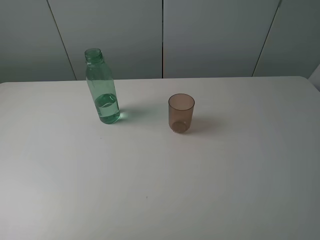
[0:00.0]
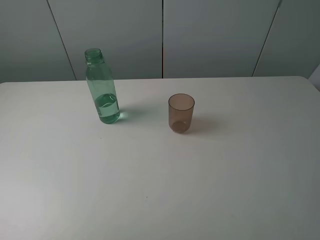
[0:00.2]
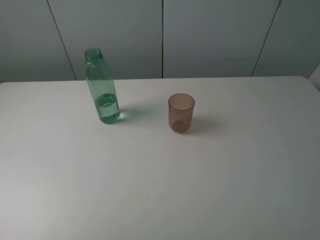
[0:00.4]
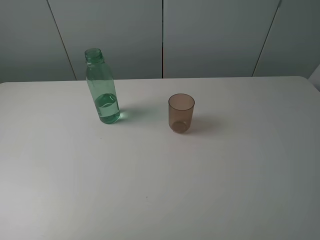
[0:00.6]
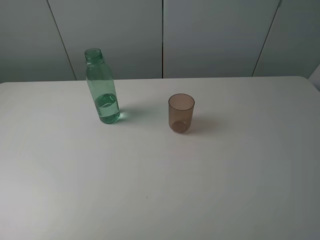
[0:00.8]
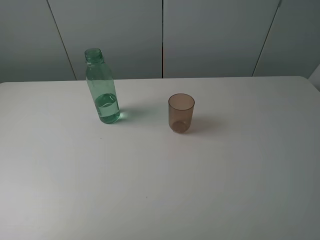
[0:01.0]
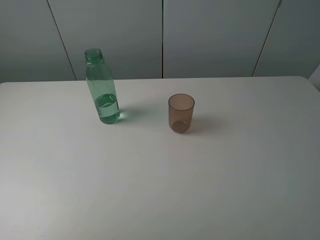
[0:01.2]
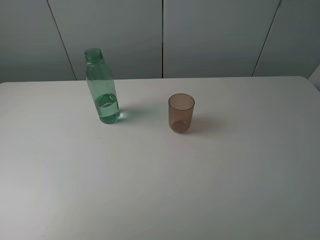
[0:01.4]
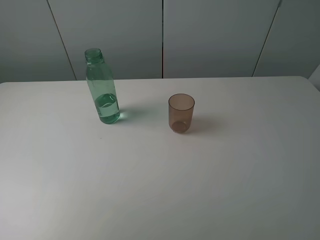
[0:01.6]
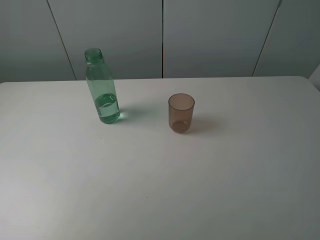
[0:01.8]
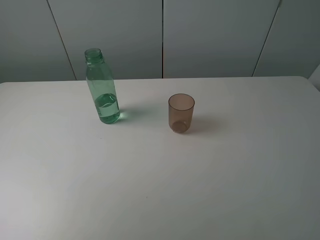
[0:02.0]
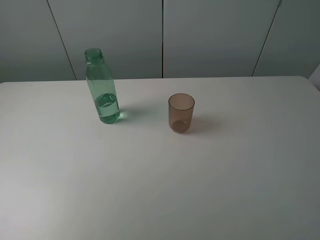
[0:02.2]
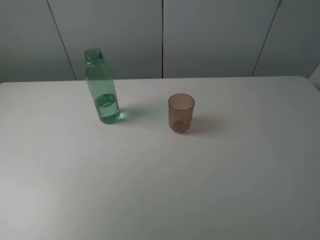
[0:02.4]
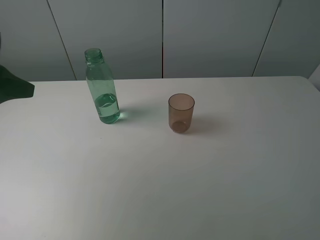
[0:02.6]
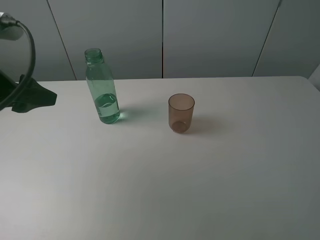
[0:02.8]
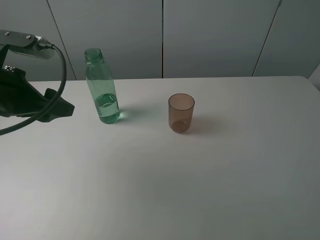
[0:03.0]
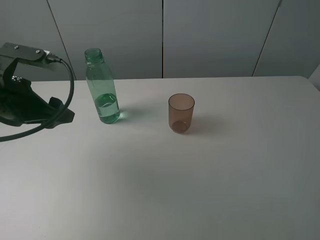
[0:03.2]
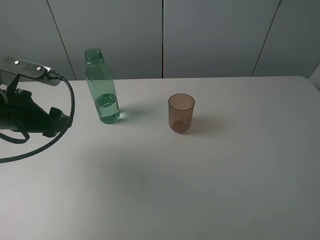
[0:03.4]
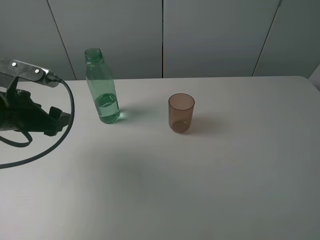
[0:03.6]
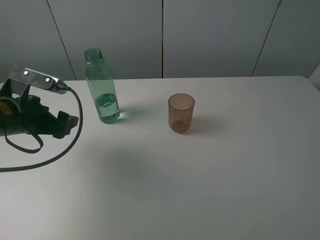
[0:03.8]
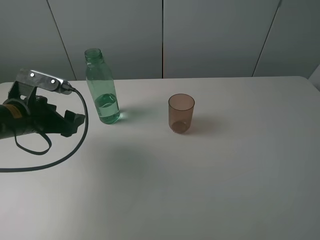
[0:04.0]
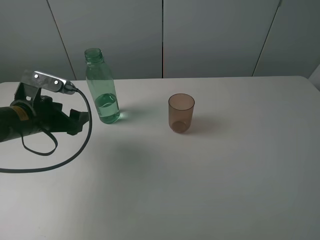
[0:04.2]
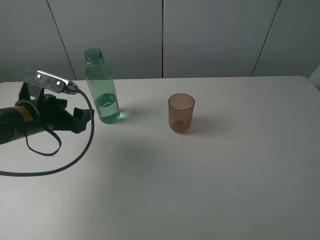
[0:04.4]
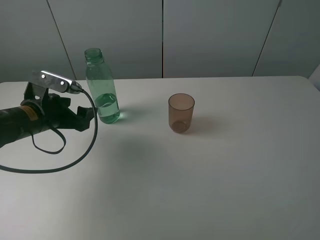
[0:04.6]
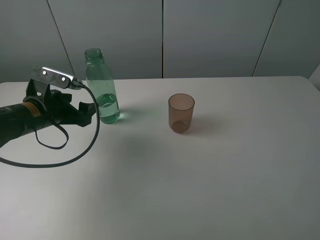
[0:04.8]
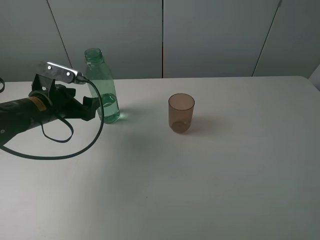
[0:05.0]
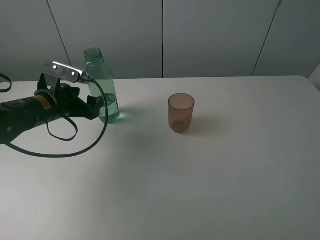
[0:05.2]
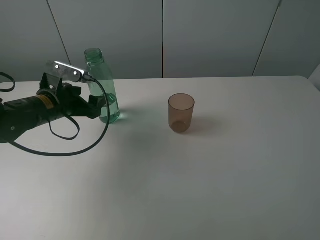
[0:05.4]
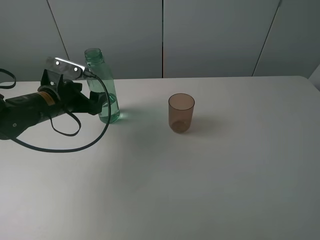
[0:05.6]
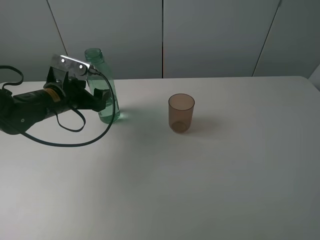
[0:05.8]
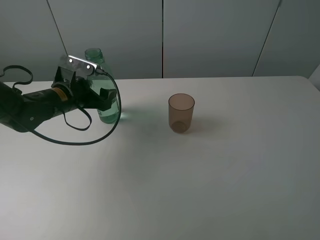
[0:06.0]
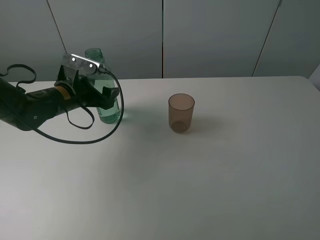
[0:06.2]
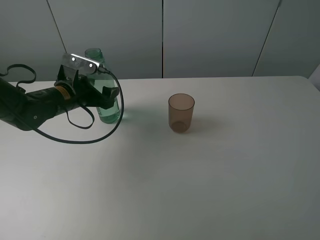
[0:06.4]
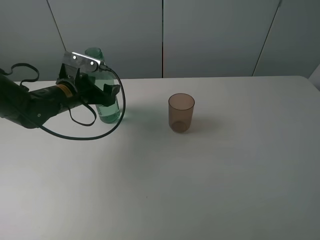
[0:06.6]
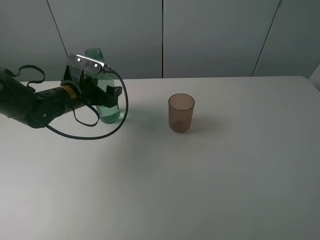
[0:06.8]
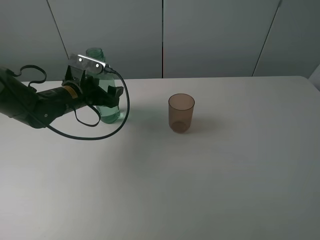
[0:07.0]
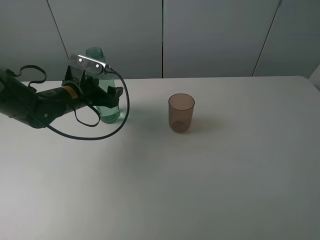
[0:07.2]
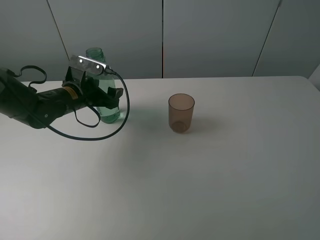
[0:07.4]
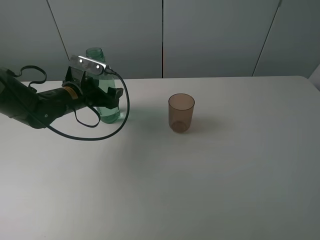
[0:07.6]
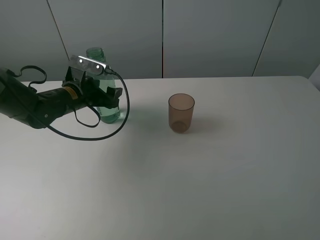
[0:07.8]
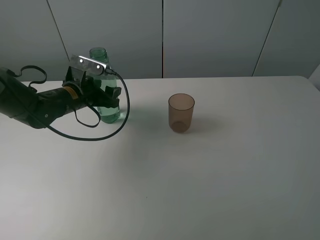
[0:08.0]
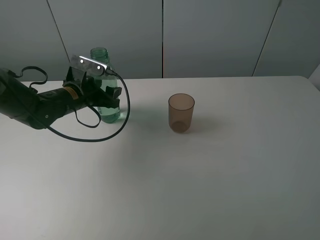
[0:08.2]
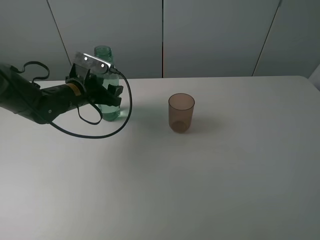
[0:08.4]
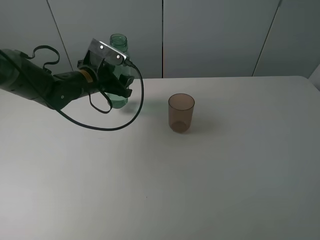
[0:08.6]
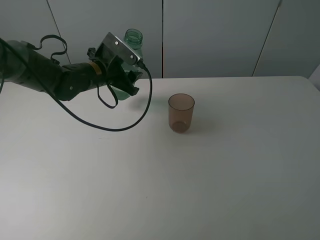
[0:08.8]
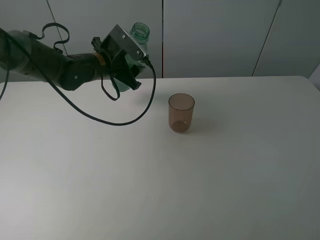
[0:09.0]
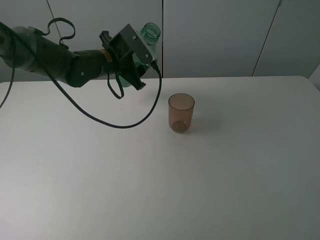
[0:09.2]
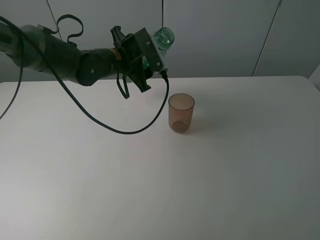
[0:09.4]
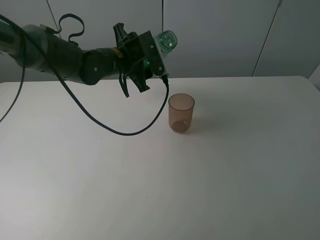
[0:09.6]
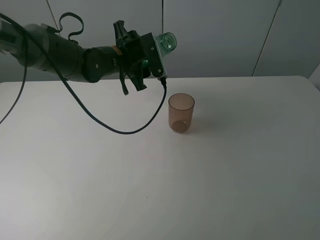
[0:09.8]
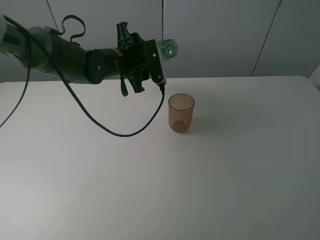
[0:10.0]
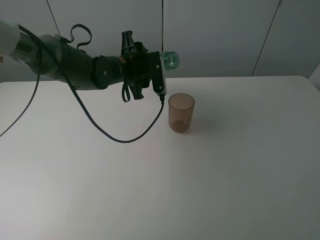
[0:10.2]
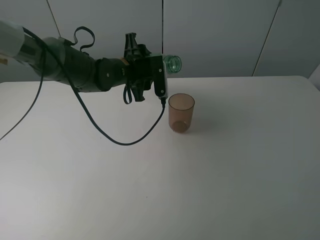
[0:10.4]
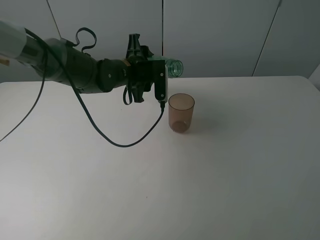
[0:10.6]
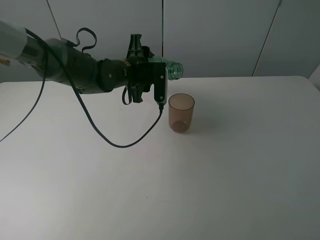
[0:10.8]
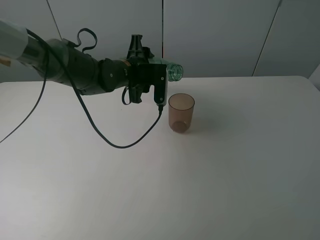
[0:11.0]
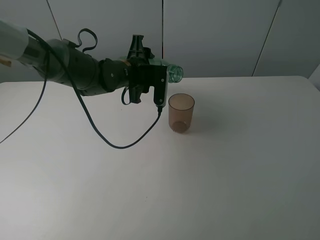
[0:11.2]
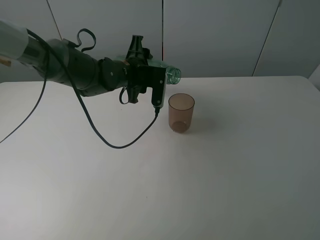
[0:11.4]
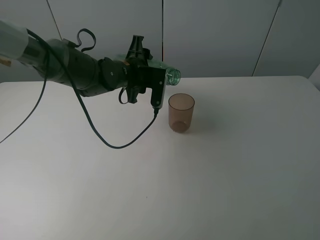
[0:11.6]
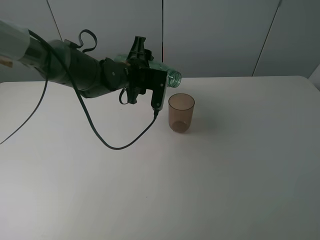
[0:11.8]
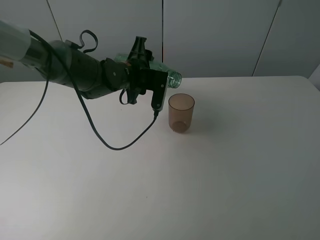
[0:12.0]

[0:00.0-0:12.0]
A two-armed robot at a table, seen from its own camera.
Task of the whole recording: pick up the bottle filled with water and pour it into the pink cup.
Step, 0:00.0 to 0:08.0: Grasp the green bottle with the left gripper.
0:01.6 to 0:03.0: The left gripper is displaced forward, downward and to the right by some 20 cm.
0:03.0 to 0:04.4: The left gripper goes approximately 10 cm downward.
0:04.4 to 0:06.0: The left gripper moves forward, about 5 cm.
0:06.0 to 0:07.6: The grippers stay close to where they were, moving slightly.
0:07.6 to 0:09.0: The left gripper travels to the right and upward by about 10 cm, and closes its fingers.
0:10.4 to 0:12.0: The grippers make only small movements.

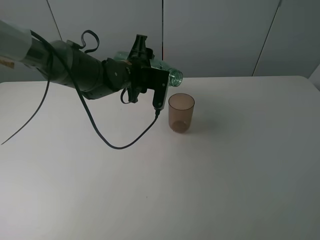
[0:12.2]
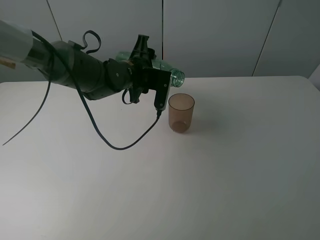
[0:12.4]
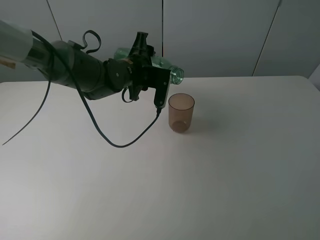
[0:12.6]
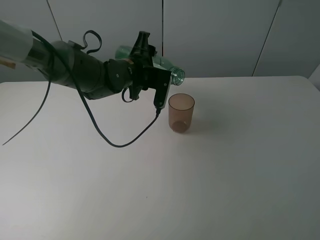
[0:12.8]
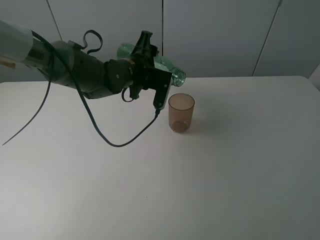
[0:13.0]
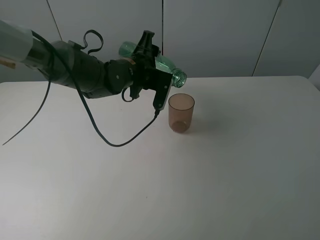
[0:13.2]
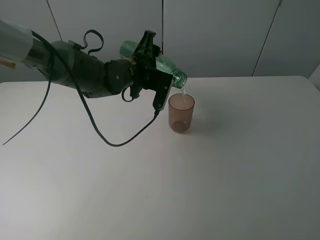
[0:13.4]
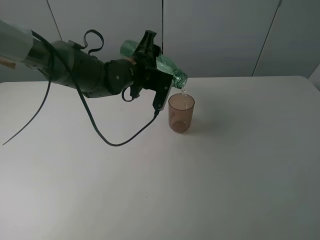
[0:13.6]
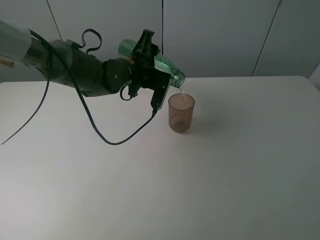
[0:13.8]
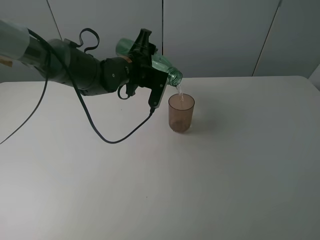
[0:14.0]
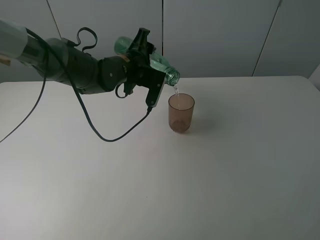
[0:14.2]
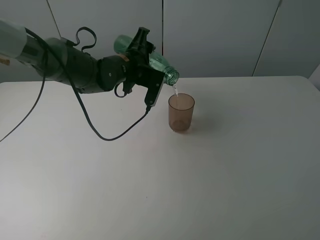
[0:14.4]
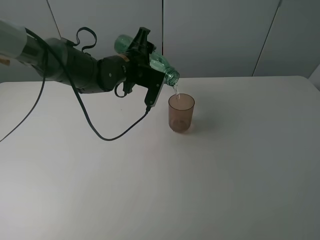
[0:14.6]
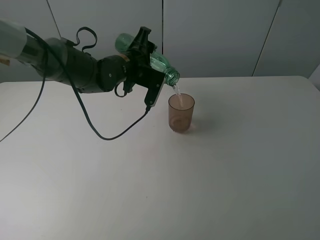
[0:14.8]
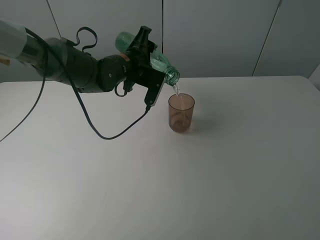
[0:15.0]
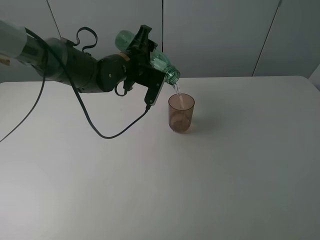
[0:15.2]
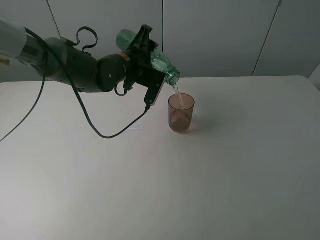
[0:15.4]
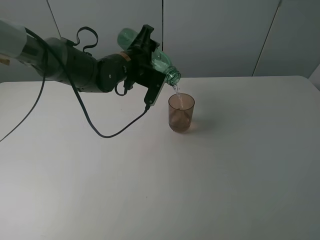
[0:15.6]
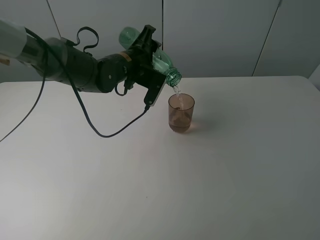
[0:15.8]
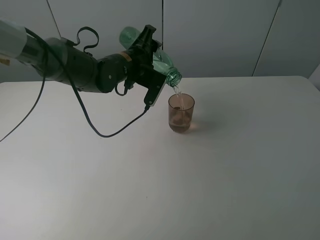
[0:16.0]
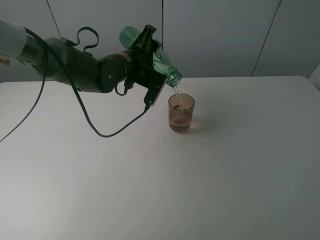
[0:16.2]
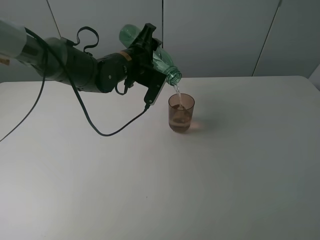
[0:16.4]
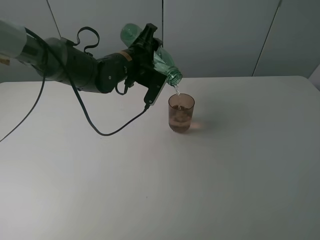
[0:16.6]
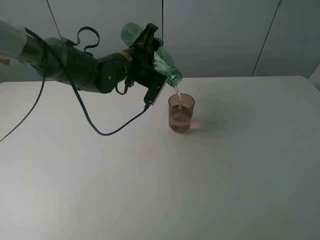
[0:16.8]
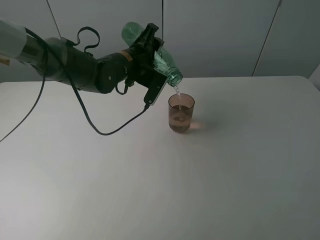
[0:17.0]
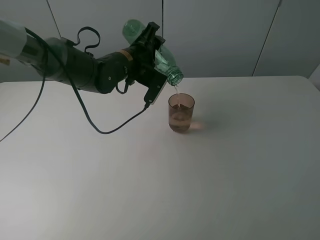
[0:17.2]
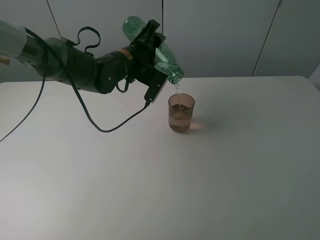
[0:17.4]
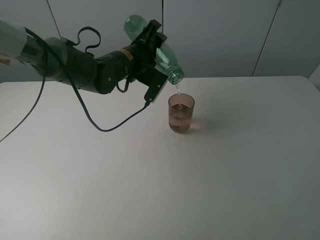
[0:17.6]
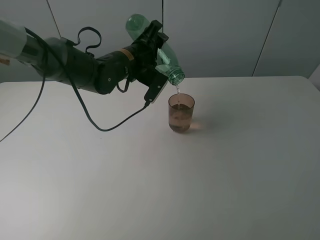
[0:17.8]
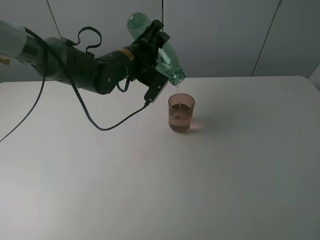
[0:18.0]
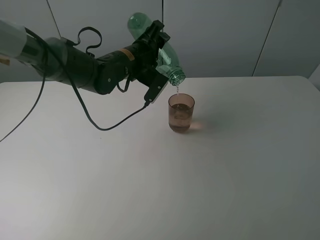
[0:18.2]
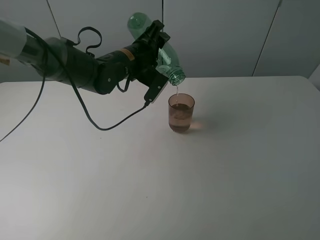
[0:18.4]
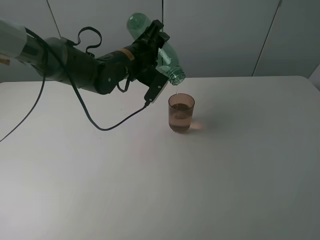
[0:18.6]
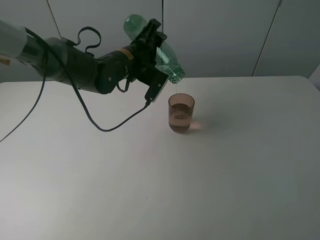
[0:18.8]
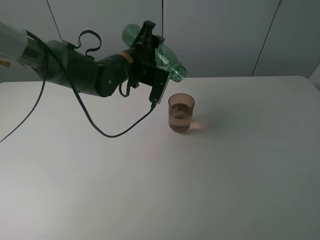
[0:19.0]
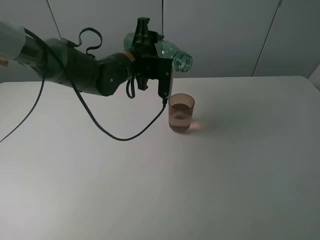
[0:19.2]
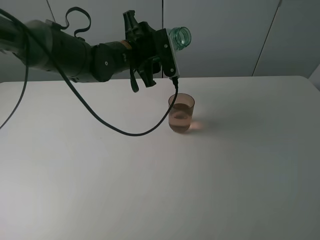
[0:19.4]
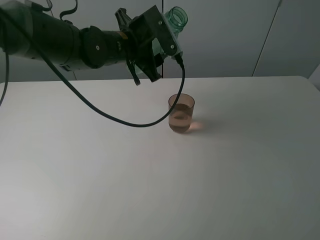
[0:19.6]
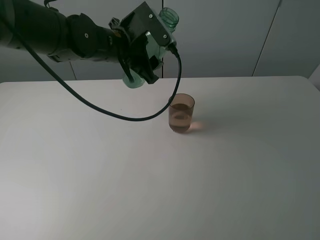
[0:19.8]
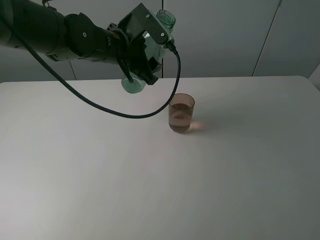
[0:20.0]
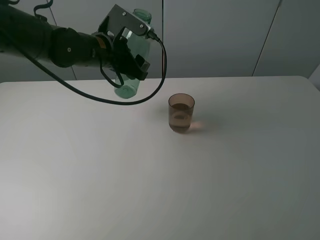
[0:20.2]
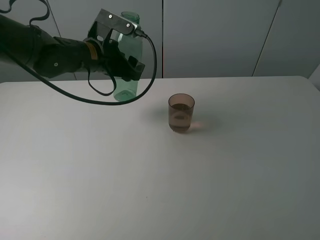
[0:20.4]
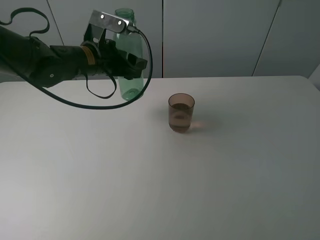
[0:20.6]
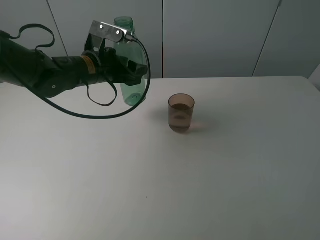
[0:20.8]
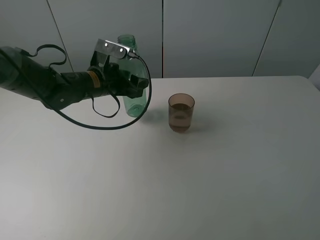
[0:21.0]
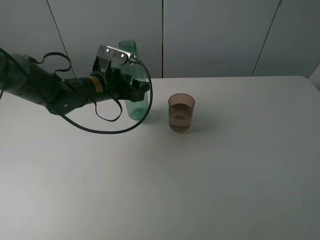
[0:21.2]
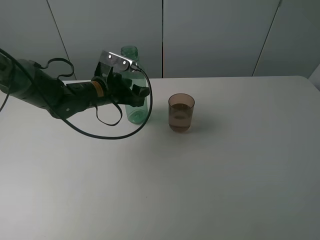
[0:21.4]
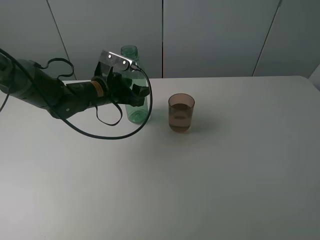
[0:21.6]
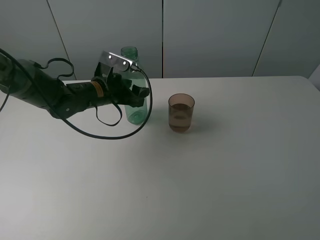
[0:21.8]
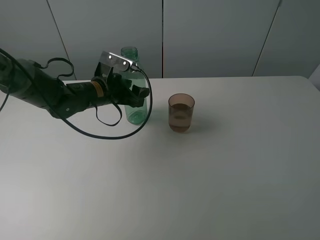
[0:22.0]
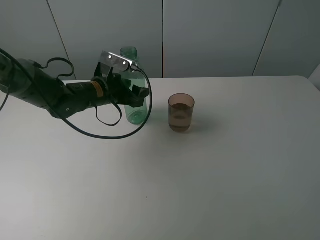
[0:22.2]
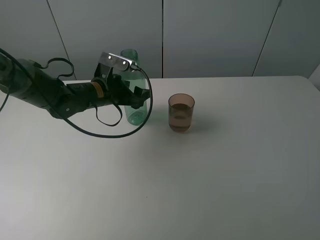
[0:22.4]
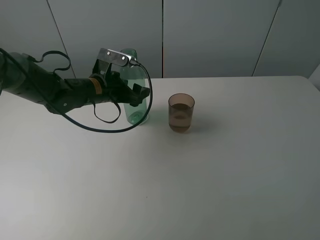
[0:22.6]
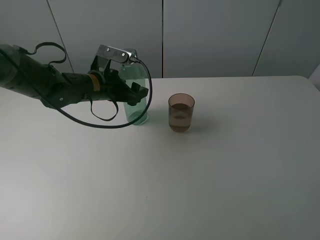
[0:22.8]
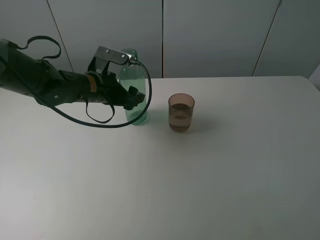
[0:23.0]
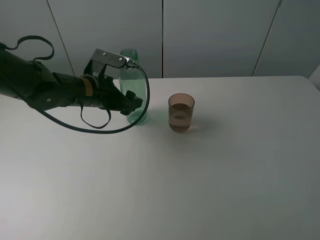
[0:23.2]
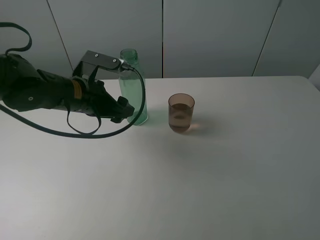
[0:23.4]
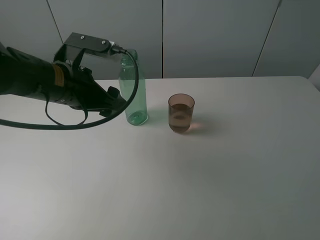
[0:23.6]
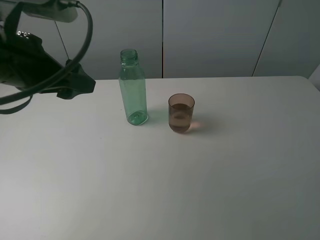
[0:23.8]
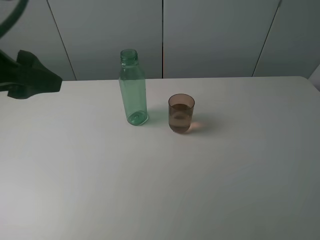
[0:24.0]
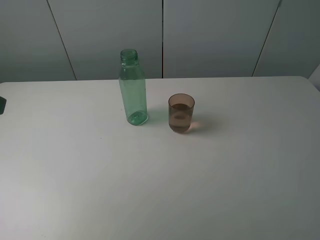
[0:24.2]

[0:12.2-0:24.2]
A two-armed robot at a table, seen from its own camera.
Task of the whole recording: pick up the bottle filled with water and pour it into the pink cup.
Step, 0:12.2 to 0:19.0: Pour water from green bottle to pink cup with the left gripper.
Step, 0:19.2 to 0:22.6: Place the green bottle with the left gripper.
0:12.2 to 0:15.2: The grippers stay close to where they were, moving slightly.
0:15.2 to 0:18.2: The grippers stay close to where they were, moving slightly.
0:18.2 to 0:19.8: The left gripper ends up about 5 cm from where it was.
0:19.8 to 0:21.2: The left gripper moves downward and to the left, some 10 cm.
0:21.2 to 0:22.6: The left gripper opens.
0:22.6 to 0:24.2: The left gripper shifts roughly 35 cm backward, upward and to the left.
